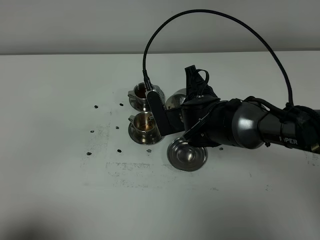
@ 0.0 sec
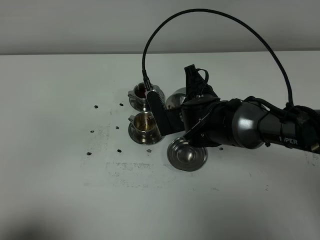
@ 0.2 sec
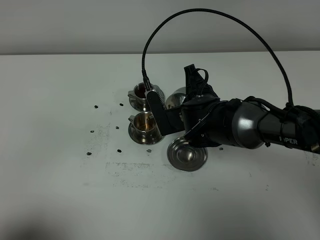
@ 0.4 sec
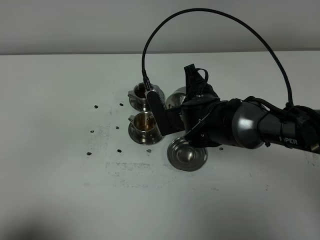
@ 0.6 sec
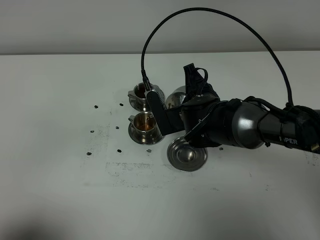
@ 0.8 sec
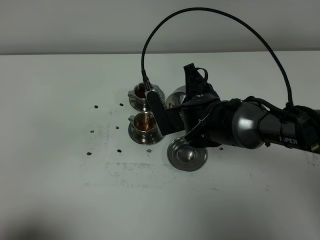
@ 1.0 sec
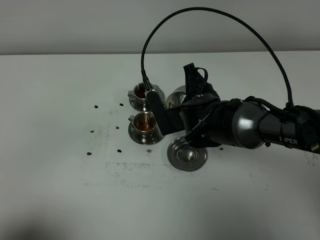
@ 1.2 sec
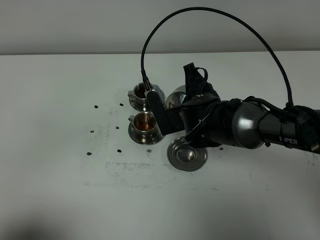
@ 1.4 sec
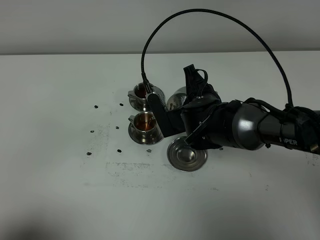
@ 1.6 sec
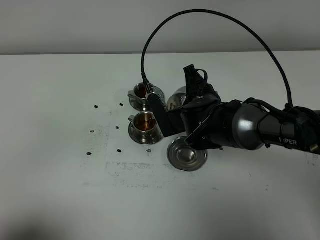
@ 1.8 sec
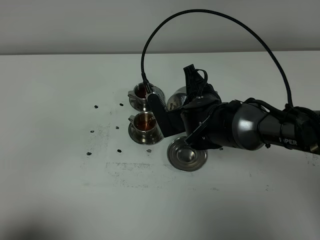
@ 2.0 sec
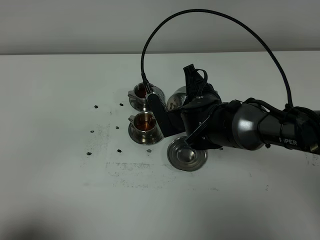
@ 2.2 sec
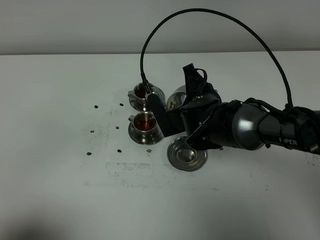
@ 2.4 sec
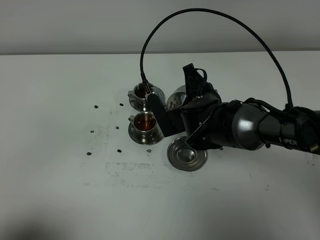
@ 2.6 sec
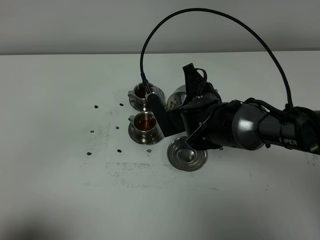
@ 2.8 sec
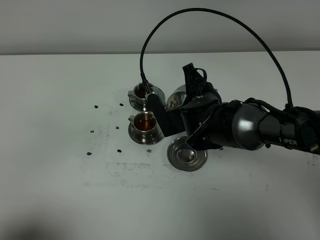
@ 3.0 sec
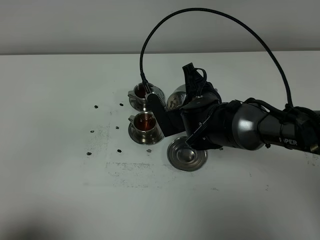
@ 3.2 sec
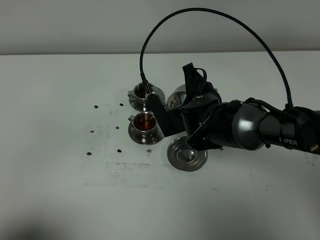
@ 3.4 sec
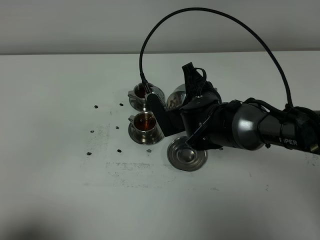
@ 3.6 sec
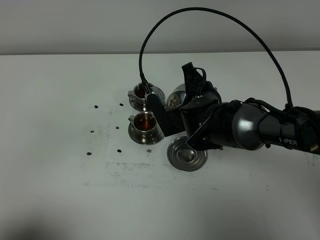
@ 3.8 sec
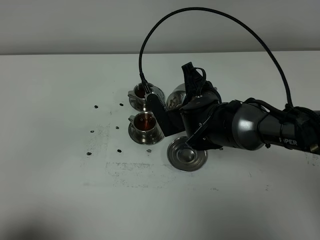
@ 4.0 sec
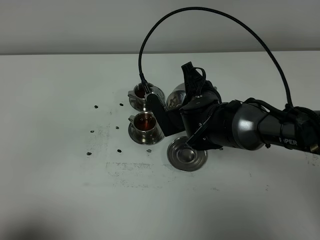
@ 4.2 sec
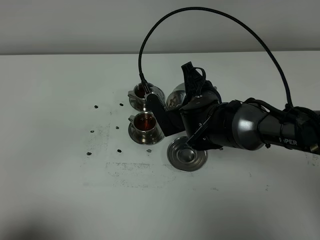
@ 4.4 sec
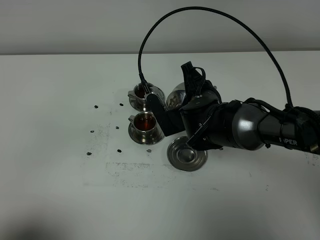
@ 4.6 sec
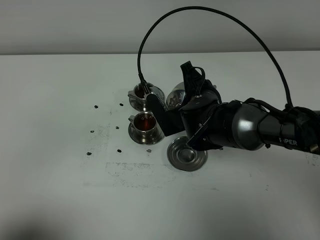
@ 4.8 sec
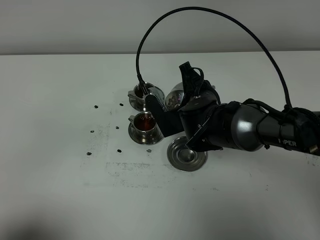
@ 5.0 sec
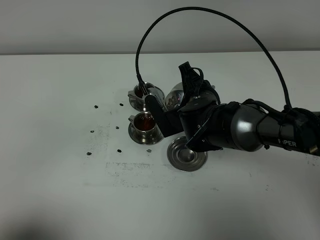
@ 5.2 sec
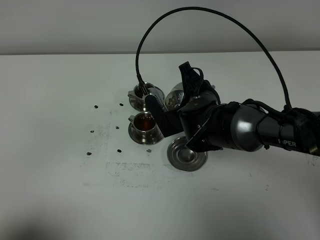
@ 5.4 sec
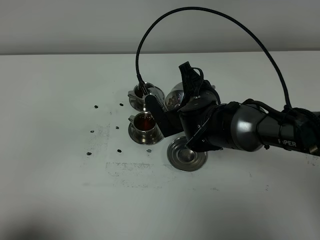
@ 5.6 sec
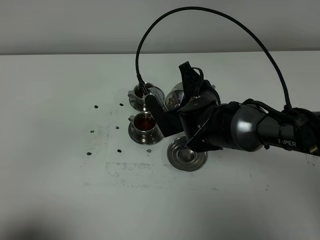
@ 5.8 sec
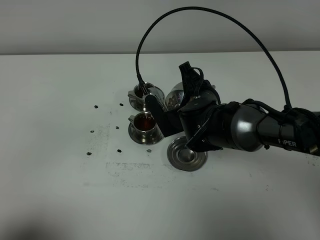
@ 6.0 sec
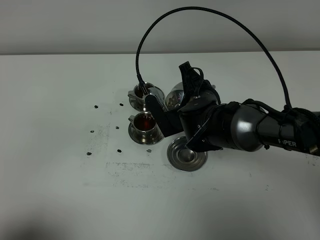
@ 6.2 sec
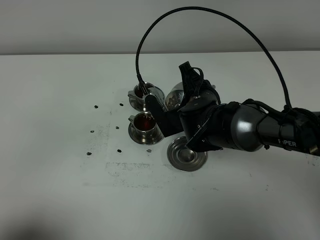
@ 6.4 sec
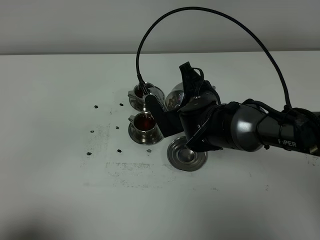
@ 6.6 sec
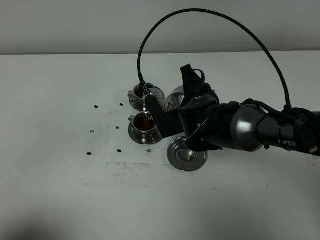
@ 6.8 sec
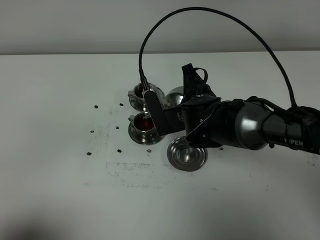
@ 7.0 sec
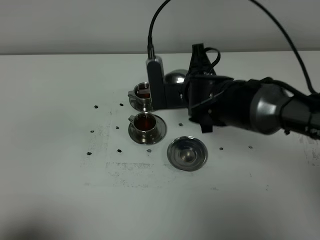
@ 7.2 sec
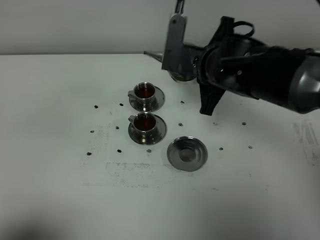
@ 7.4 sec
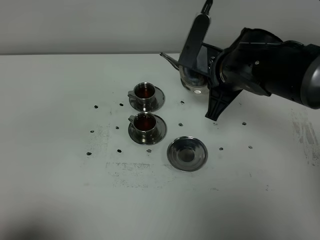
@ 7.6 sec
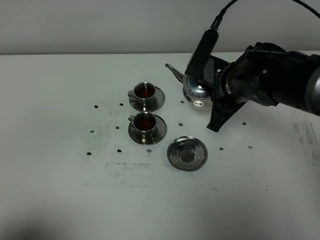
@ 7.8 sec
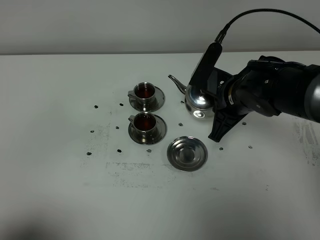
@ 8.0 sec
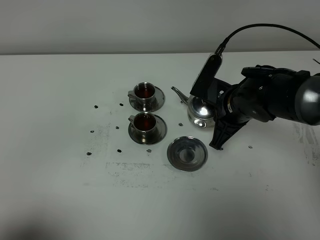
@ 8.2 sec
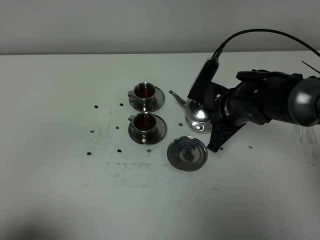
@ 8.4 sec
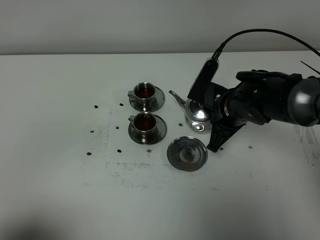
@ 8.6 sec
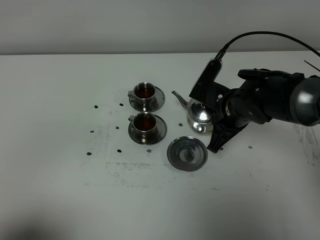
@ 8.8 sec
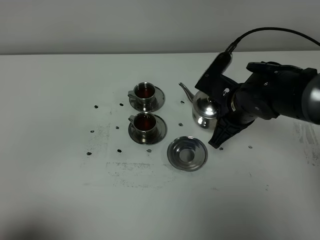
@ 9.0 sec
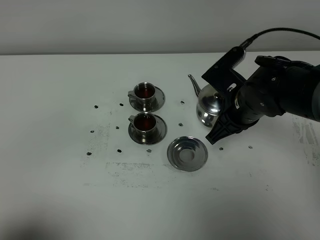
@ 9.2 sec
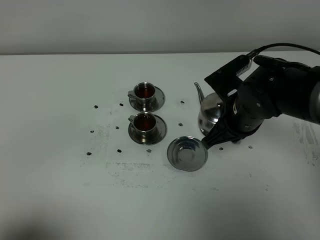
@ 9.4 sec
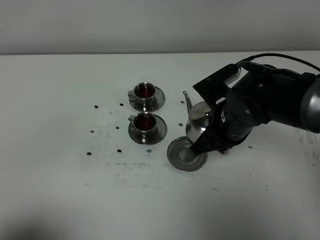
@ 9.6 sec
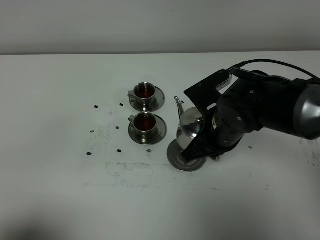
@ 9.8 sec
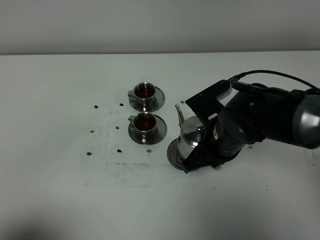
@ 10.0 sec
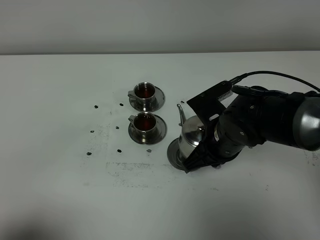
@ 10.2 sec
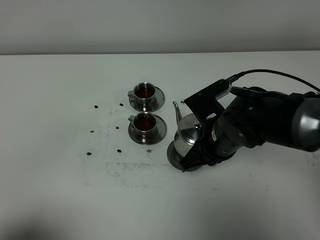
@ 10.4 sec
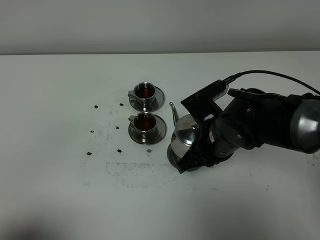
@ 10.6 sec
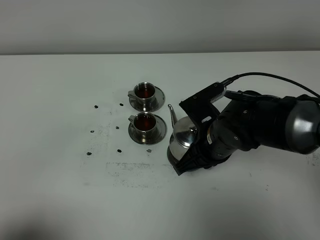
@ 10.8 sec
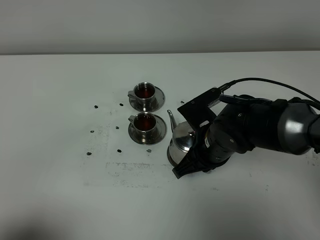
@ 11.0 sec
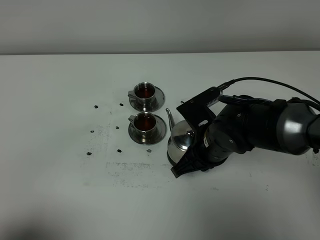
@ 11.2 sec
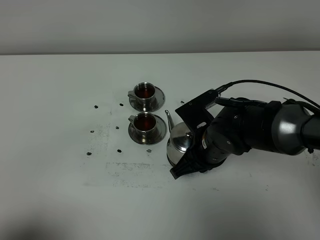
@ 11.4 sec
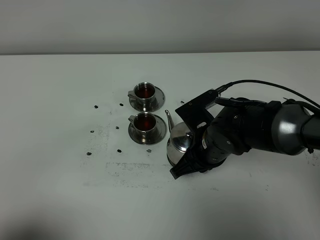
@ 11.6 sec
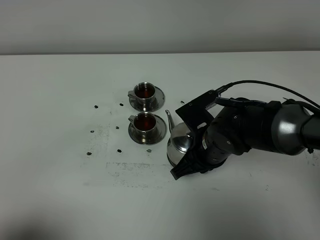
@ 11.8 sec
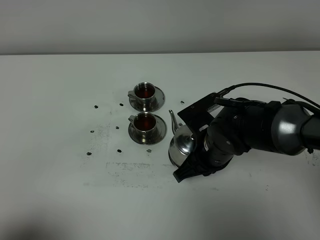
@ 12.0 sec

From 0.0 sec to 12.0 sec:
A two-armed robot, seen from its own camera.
Task of the whole recording: grasp the stainless steel teapot and pour the tea into the two stainless steel teacups one by one, put the stainless steel teapot back in its original place.
Step, from 0.0 sec to 7.0 sec: Pour tea into the teacup with the right gripper.
From 0.0 sec to 1.6 sec: Neither gripper changes place.
From 1.6 sec to 4.4 sec: Both grippers stay put.
From 4.4 sec to 6.0 sec: Both grippers stay put.
From 6.0 sec to 7.6 sec: The right gripper heads upward, covering roughly 10 cm.
From 7.6 sec to 9.0 sec: The right gripper shifts about 5 cm downward.
From 9.0 sec to 10.4 sec: The right gripper changes place by about 5 cm.
From 10.4 sec to 12.0 sec: The grippers make only small movements.

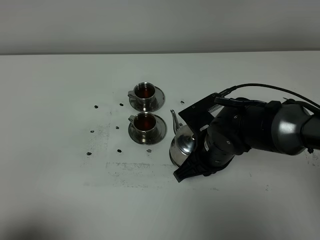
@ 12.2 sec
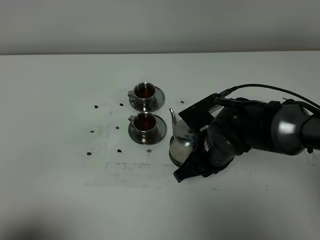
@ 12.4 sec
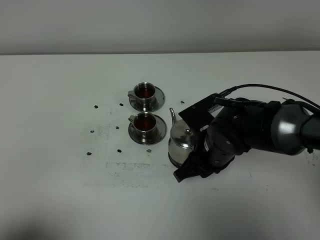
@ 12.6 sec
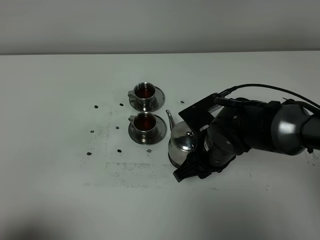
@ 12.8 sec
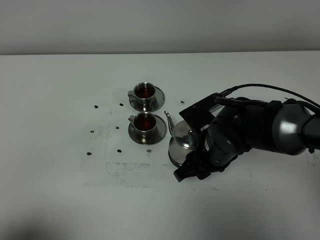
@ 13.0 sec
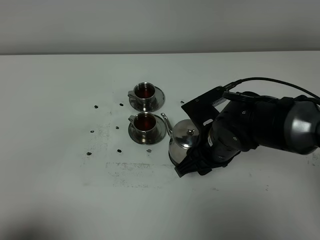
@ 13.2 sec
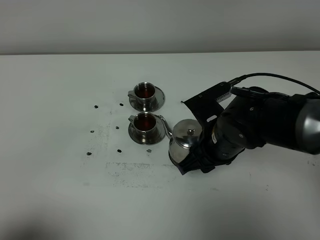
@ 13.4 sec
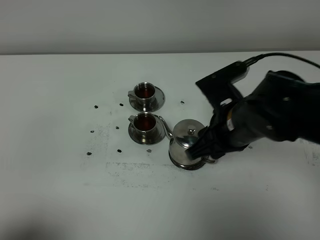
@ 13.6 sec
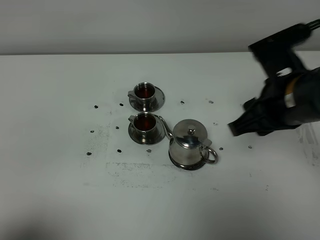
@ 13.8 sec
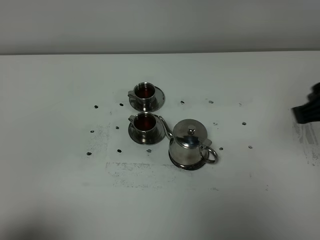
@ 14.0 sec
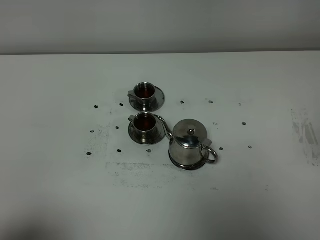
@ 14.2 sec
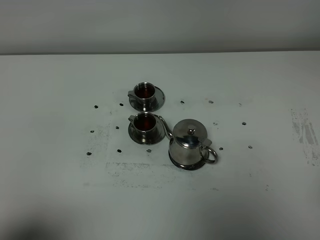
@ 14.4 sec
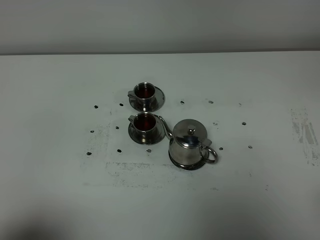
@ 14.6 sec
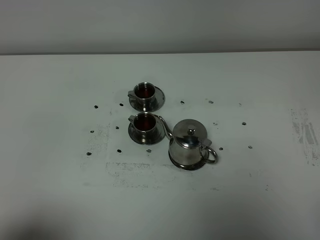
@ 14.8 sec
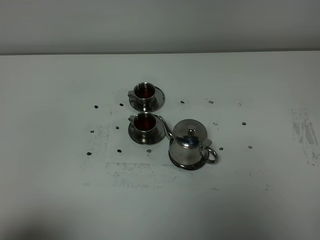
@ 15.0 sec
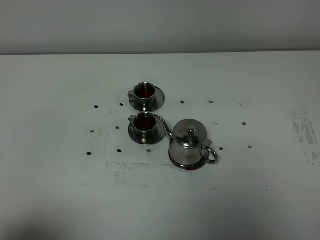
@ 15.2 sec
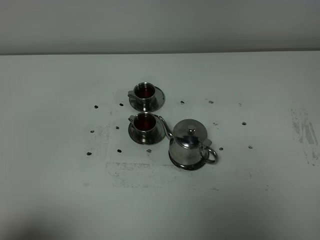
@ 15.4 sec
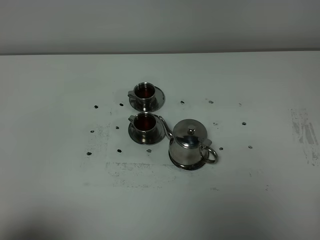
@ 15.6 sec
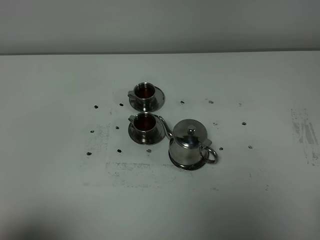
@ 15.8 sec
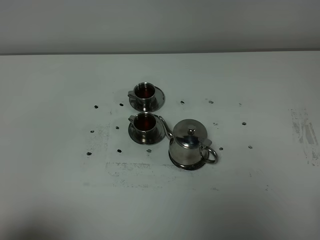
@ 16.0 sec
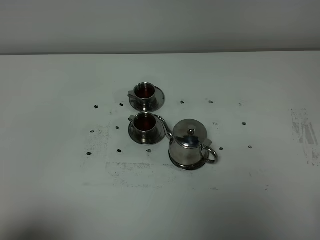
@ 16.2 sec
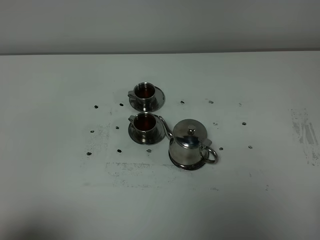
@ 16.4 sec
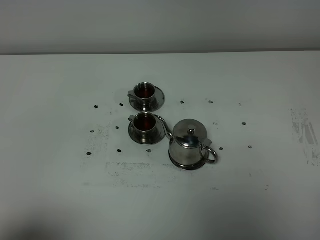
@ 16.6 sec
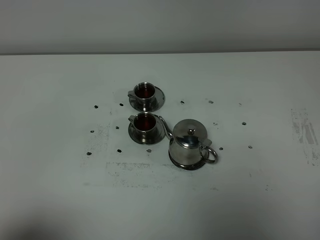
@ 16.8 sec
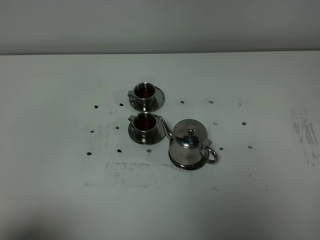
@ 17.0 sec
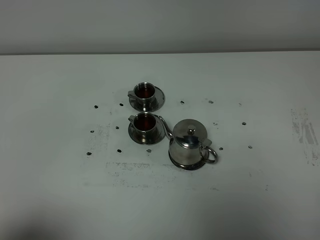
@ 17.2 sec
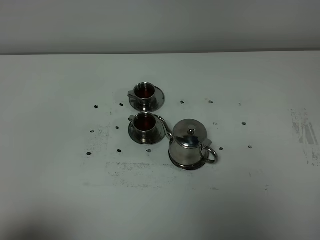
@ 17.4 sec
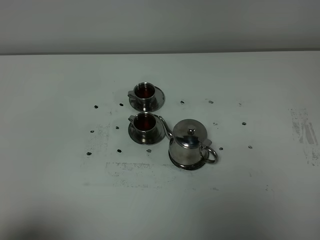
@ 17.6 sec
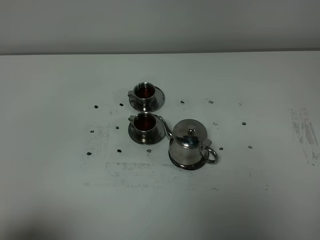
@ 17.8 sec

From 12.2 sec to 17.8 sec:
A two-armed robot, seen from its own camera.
Task of the whole recording: grasp the stainless steel teapot and pour the tea into the two stainless steel teacups one by one, put the stainless steel teapot back in its original place.
From 12.2 sec to 13.6 sec: The right gripper goes approximately 10 cm upward, and opens its fingers.
From 13.6 sec to 15.0 sec: The right gripper heads backward and to the right, covering some 30 cm.
